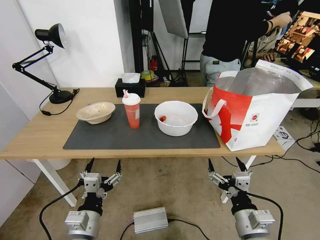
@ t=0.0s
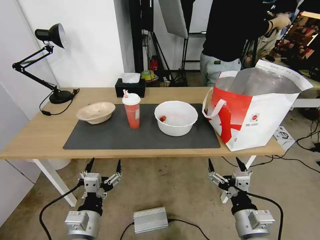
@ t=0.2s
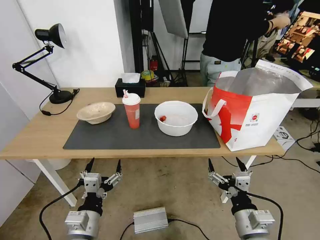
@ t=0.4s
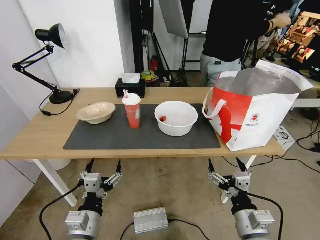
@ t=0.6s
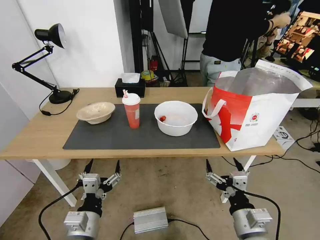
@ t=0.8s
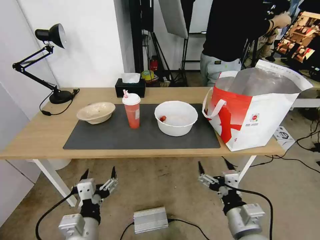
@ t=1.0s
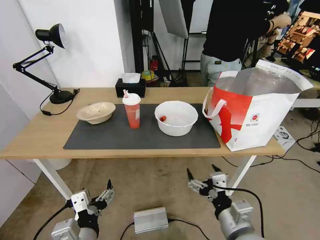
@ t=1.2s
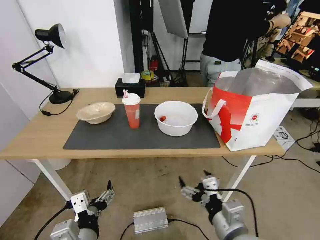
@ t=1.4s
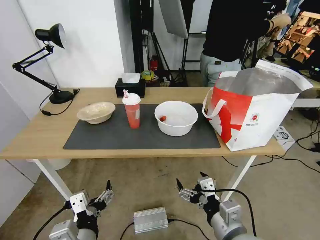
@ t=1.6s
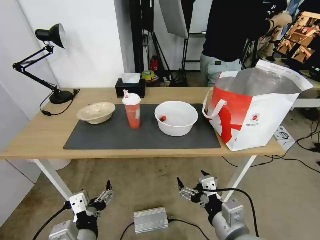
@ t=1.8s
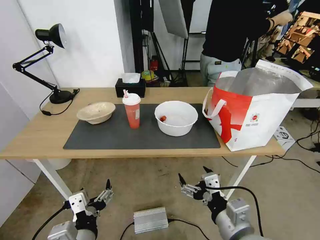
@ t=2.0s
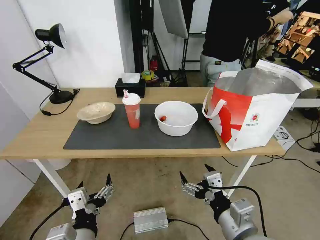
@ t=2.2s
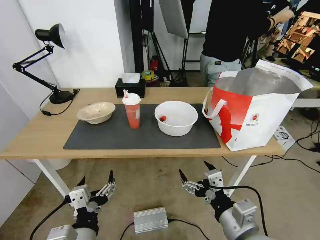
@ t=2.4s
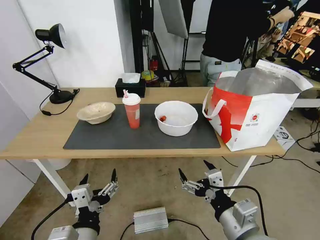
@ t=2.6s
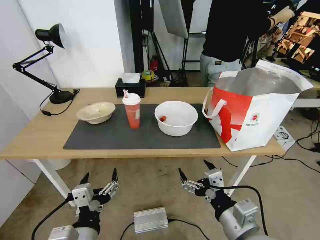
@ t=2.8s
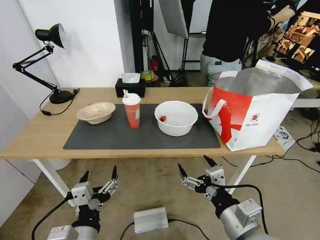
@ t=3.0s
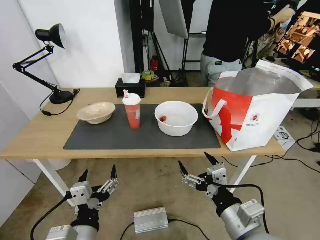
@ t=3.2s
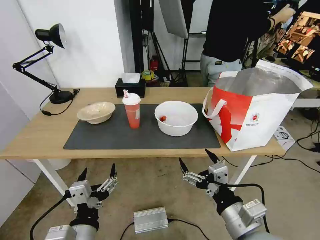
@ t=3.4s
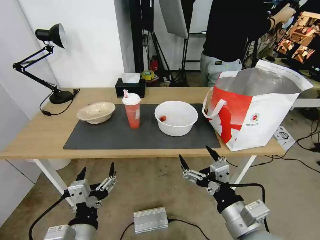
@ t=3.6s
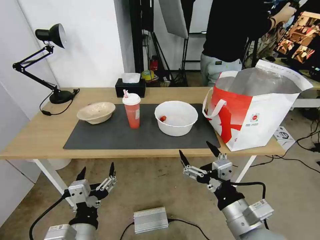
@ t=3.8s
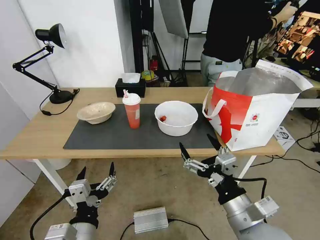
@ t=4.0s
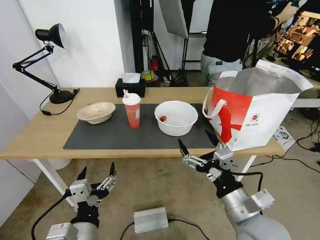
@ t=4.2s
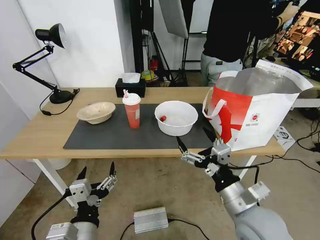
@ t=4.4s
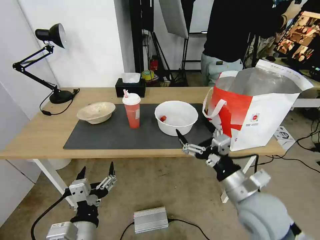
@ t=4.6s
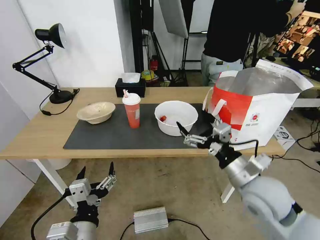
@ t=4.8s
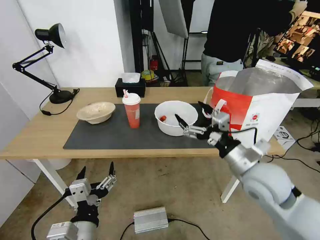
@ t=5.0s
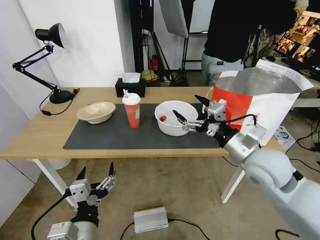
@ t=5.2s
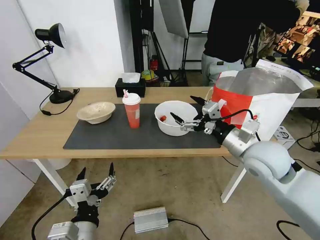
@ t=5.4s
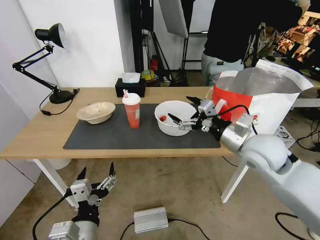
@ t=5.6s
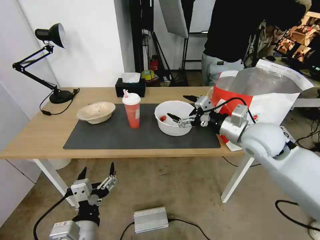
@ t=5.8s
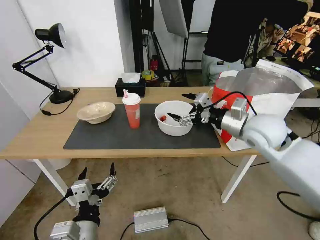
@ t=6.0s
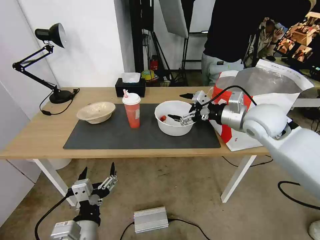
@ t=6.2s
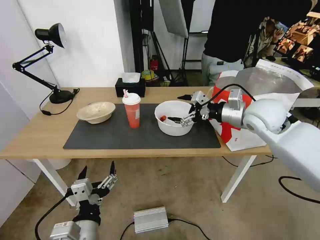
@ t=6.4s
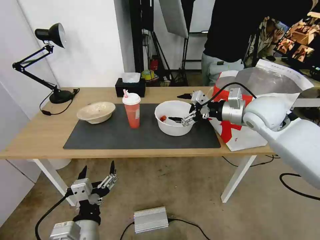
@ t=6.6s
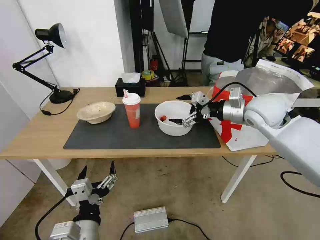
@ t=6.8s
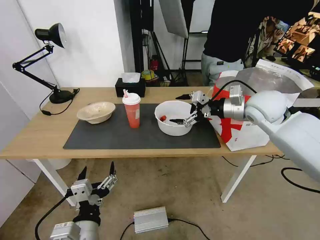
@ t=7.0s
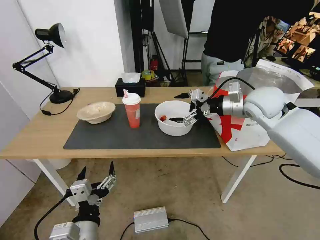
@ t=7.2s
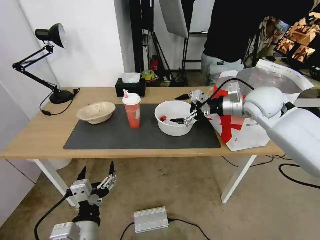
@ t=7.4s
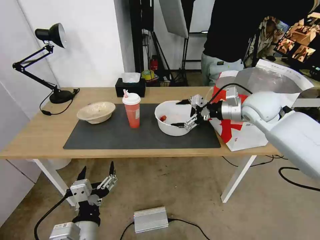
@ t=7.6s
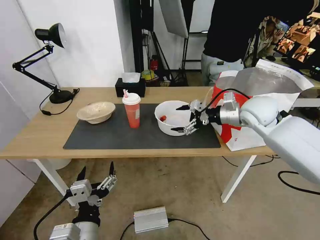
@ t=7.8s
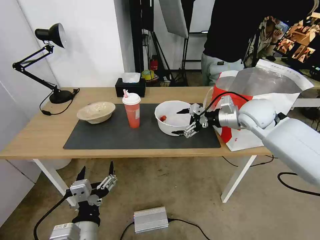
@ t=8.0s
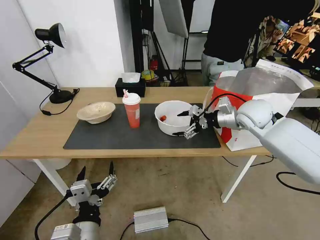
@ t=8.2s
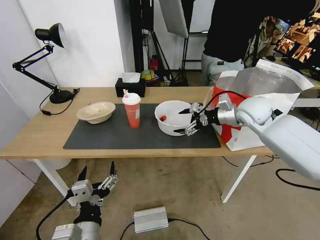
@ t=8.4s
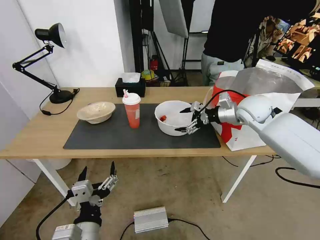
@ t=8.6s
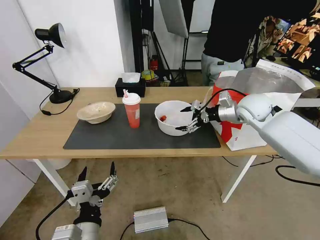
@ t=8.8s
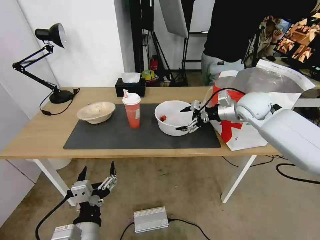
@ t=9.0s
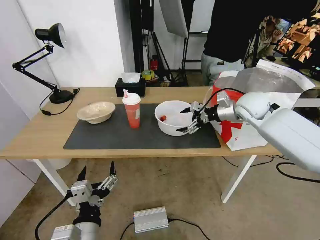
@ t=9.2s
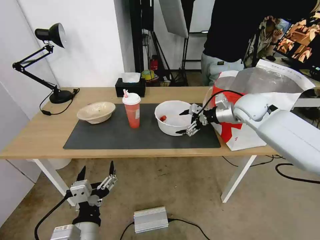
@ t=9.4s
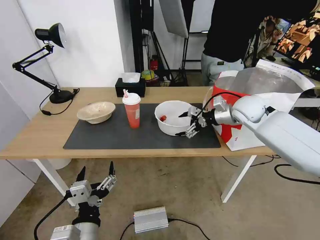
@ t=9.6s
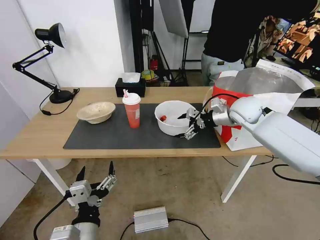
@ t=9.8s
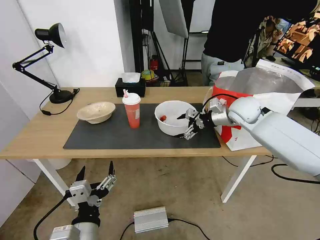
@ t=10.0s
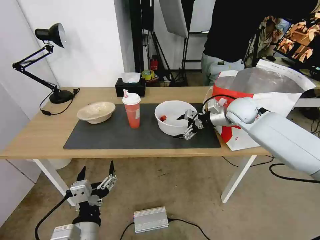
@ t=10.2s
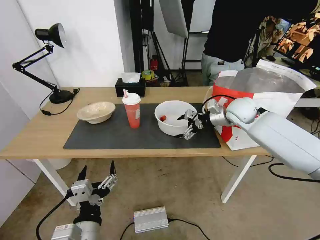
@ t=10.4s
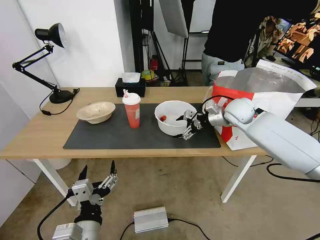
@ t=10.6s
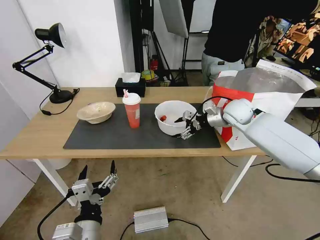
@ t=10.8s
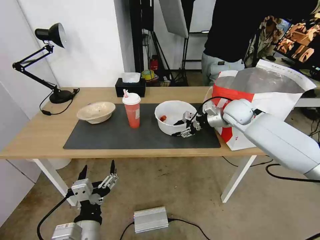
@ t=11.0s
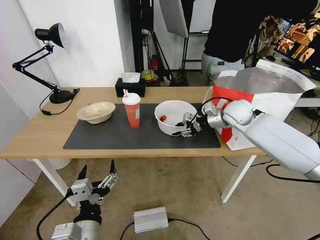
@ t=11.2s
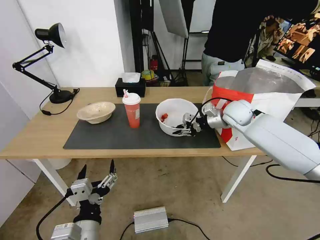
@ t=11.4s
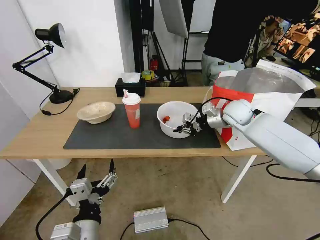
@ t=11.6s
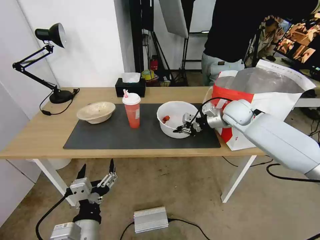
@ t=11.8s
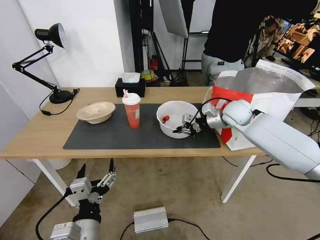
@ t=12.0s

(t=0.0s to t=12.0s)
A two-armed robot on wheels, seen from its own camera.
Task of the whole recording: Pick up the trash from the table and place it into the takeout bag.
t=1.6s - t=3.0s: There are only small adjustments of the grippers.
t=3.0s - t=4.4s: The right gripper goes some 5 cm forward.
t=4.4s - t=6.0s: The right gripper goes roughly 25 cm forward and upward.
t=6.0s - t=7.6s: The right gripper is displaced forward by some 10 cm.
t=7.6s - t=9.0s: The grippers move only a little.
t=9.0s - t=10.4s: The grippers stay close to where they were, moving slightly.
t=10.4s - t=12.0s: The right gripper closes.

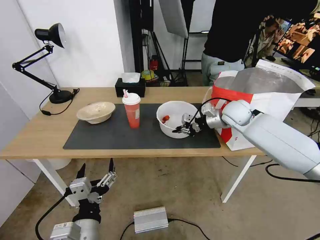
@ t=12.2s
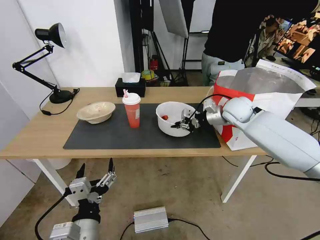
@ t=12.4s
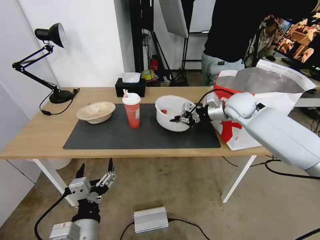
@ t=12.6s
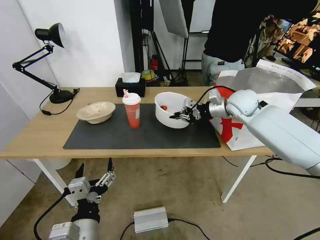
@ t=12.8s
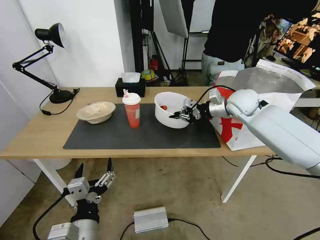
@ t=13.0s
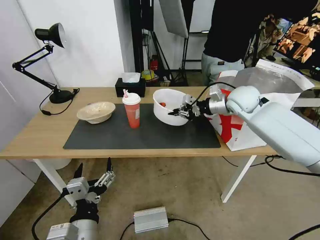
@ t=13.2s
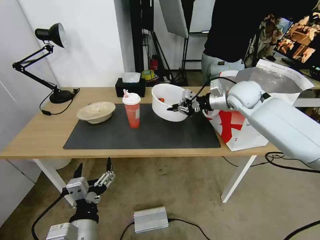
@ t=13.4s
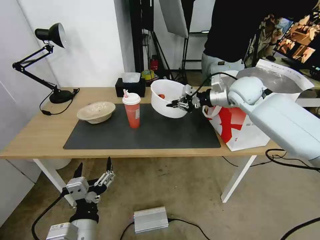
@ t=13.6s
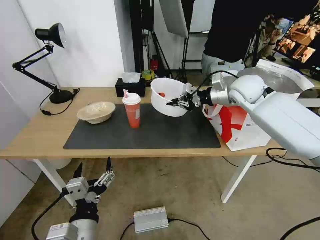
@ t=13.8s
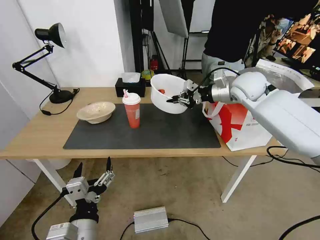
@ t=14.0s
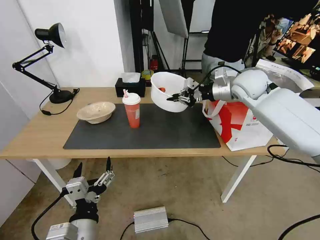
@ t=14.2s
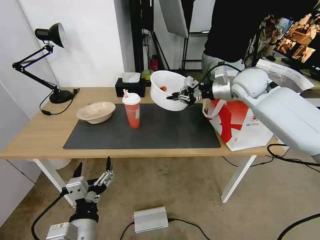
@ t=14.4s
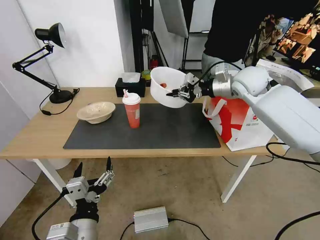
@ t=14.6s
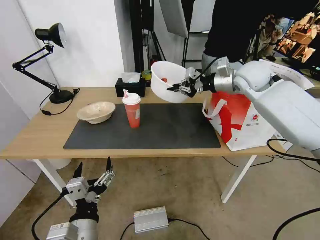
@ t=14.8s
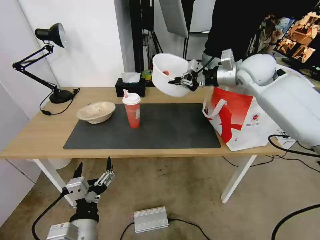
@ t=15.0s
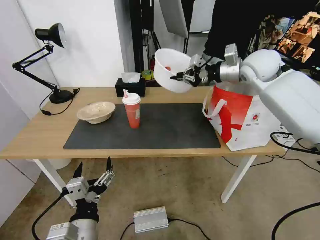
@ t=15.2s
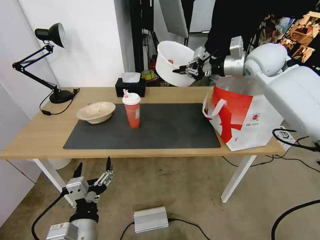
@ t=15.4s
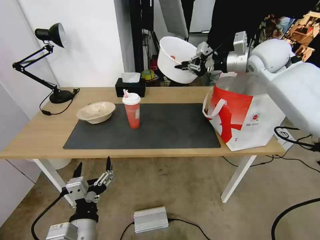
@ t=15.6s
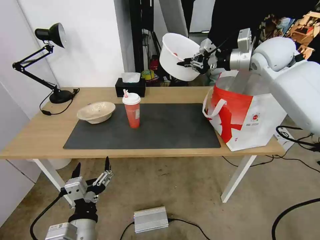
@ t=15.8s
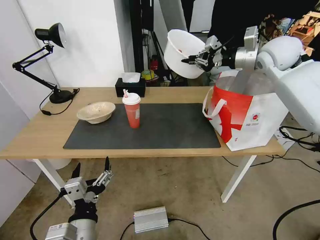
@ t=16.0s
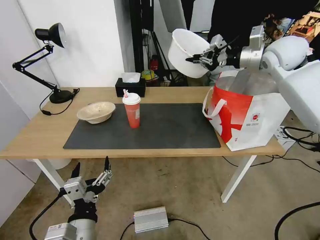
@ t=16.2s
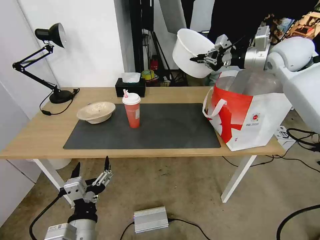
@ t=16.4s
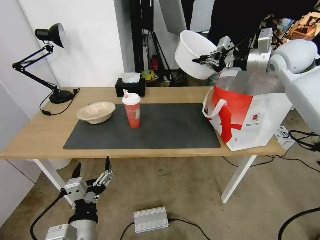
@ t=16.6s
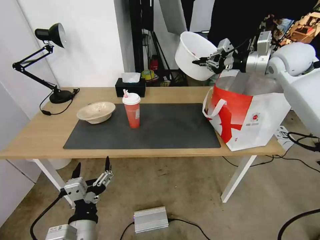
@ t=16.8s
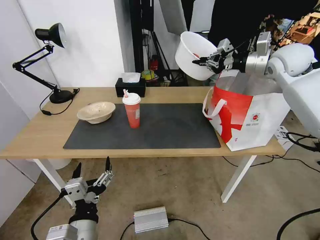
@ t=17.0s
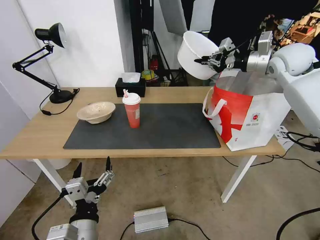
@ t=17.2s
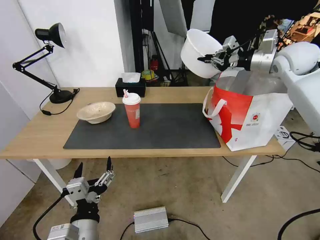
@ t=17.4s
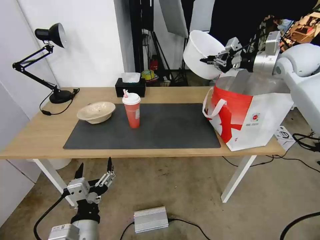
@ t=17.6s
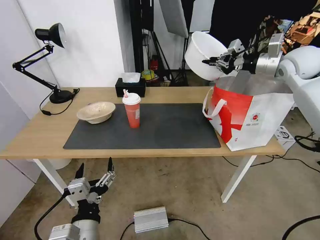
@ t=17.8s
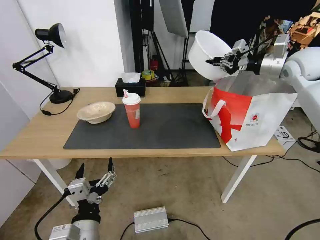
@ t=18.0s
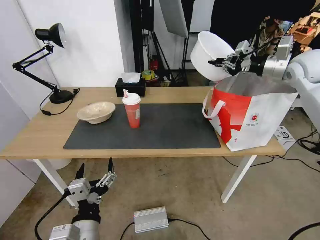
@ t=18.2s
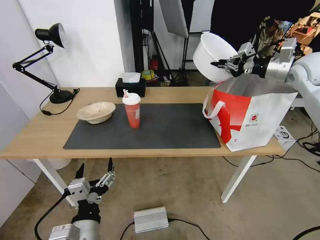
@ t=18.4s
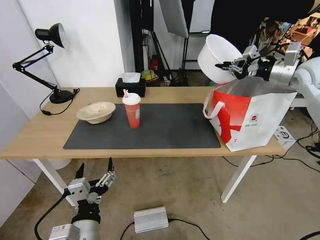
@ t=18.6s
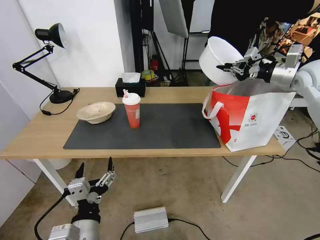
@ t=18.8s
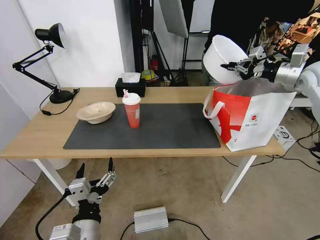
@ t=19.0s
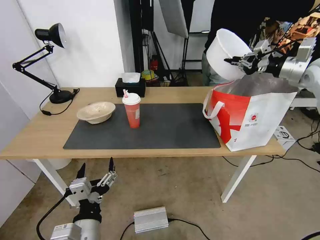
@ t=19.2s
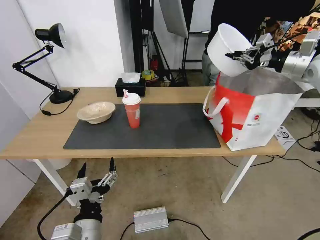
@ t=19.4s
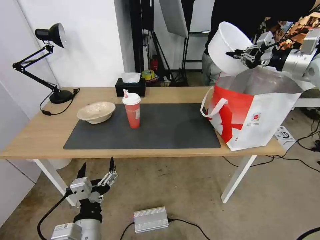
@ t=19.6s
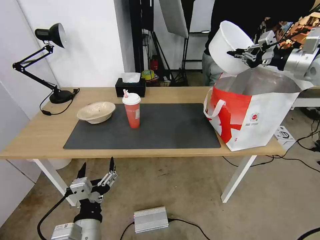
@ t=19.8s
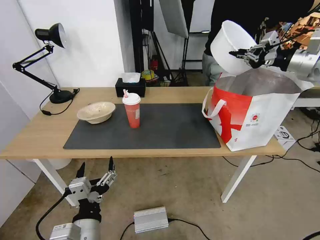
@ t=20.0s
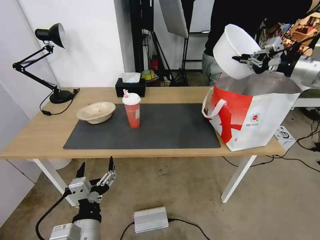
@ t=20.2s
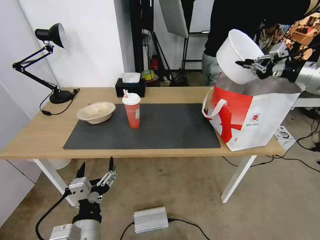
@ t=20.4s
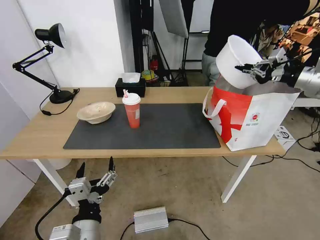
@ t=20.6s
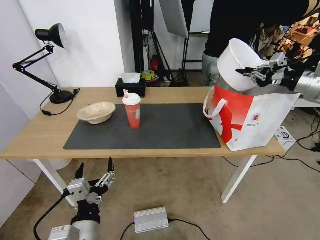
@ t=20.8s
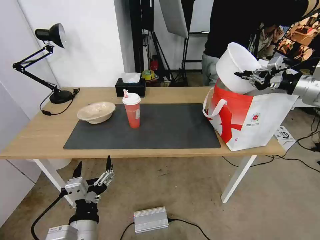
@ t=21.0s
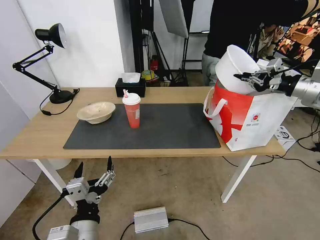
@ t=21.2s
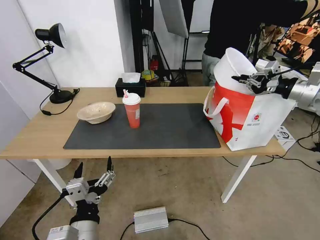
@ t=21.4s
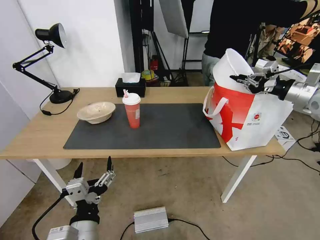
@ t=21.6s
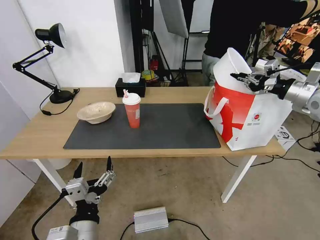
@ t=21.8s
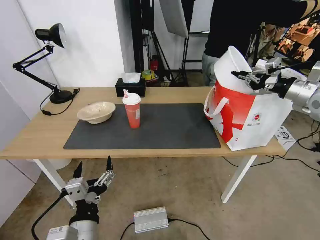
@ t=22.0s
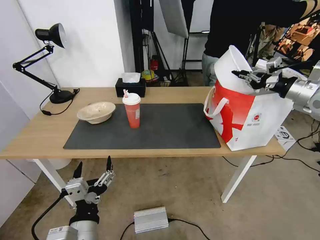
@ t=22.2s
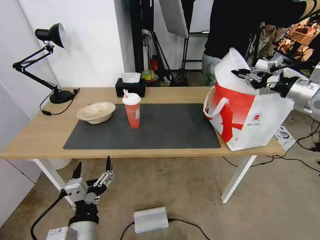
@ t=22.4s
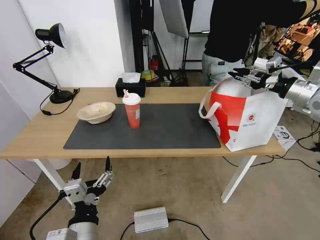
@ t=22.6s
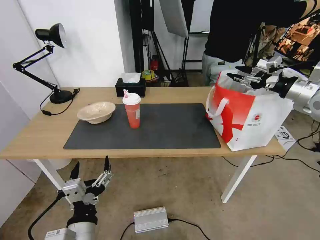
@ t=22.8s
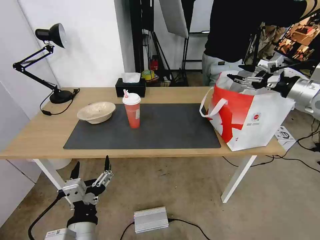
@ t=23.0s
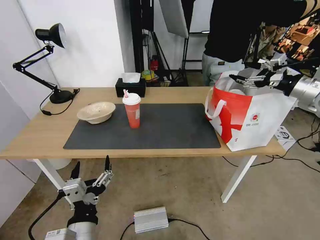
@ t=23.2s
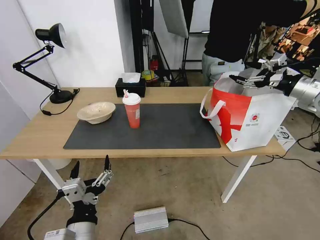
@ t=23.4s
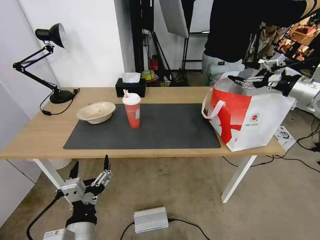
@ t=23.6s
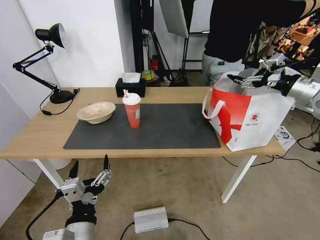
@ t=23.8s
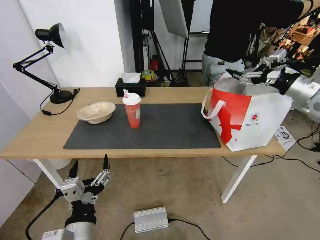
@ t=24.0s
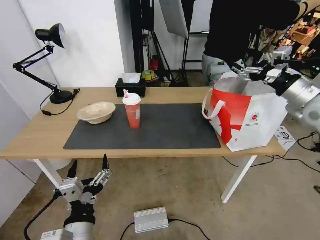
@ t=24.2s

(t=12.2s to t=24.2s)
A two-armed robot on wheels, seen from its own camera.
Task of the whole recording: Pick up the trash from the table and place it into the takeout bag.
t=12.2s - t=13.8s: The right gripper travels upward by approximately 10 cm.
t=13.8s - t=15.2s: The right gripper moves upward, approximately 5 cm.
t=15.2s - t=16.6s: The right gripper moves to the right, approximately 10 cm.
t=16.6s - t=18.2s: The right gripper travels to the right by approximately 5 cm.
t=18.2s - t=19.8s: The right gripper changes place by about 5 cm.
t=19.8s - t=21.2s: The right gripper goes about 10 cm downward and backward.
t=21.2s - t=22.6s: The right gripper opens.
t=22.6s - t=24.2s: The right gripper is displaced to the left by some 5 cm, and opens.
